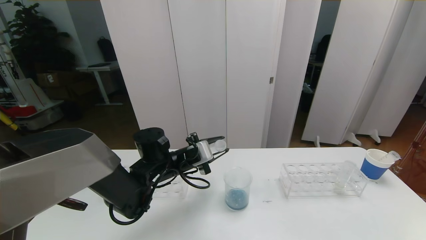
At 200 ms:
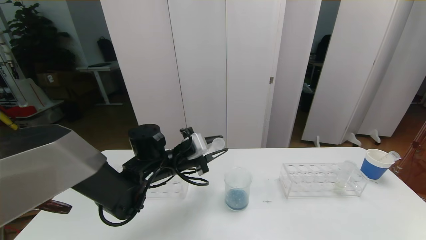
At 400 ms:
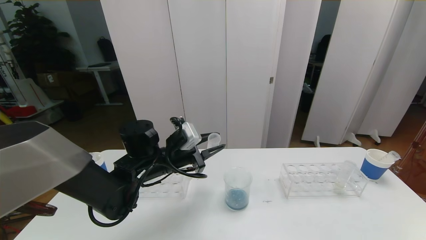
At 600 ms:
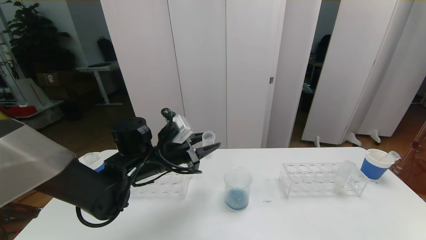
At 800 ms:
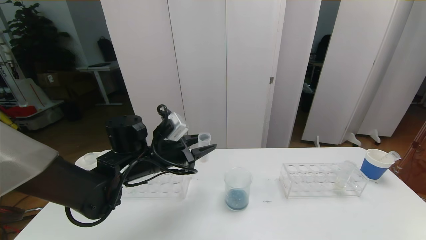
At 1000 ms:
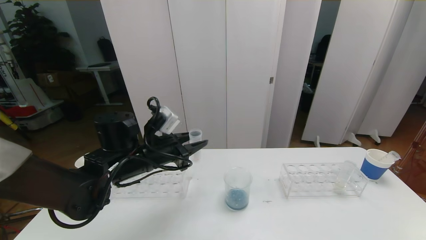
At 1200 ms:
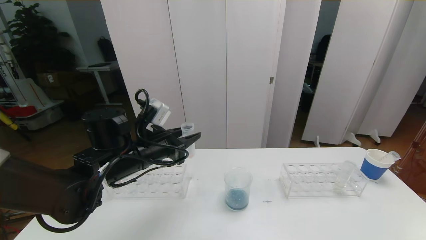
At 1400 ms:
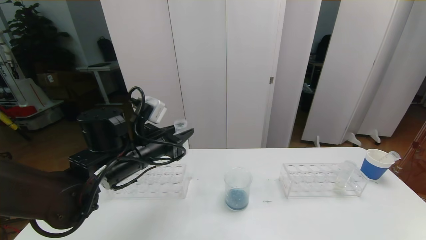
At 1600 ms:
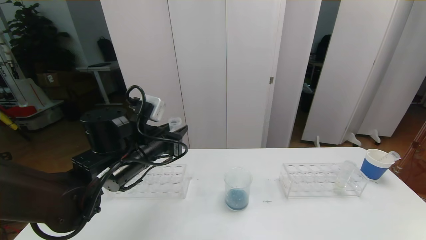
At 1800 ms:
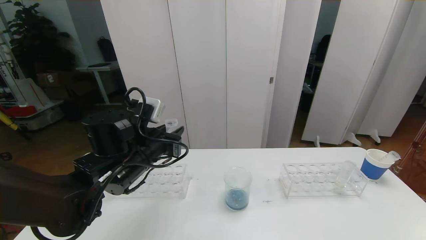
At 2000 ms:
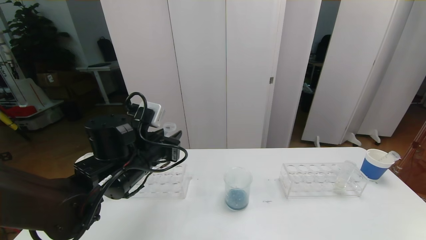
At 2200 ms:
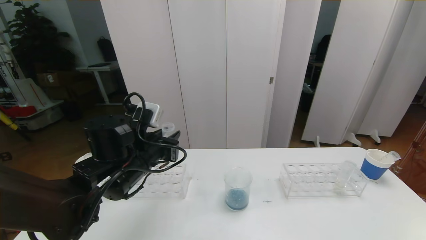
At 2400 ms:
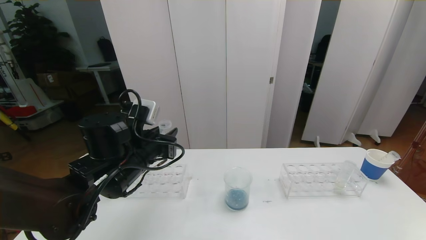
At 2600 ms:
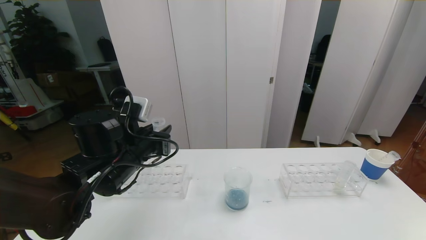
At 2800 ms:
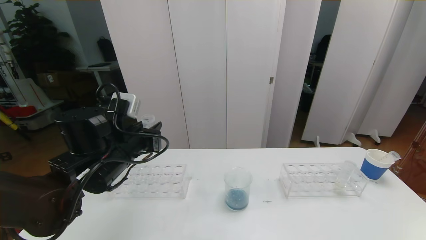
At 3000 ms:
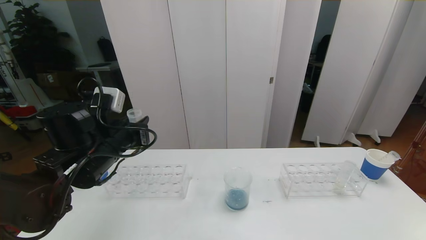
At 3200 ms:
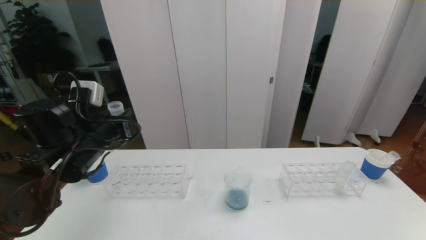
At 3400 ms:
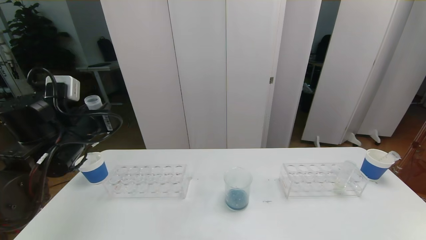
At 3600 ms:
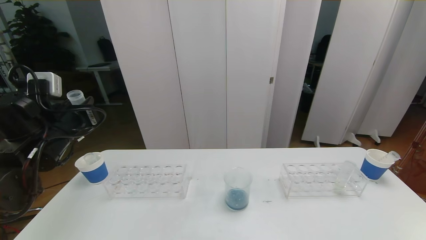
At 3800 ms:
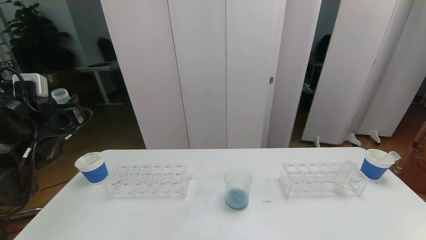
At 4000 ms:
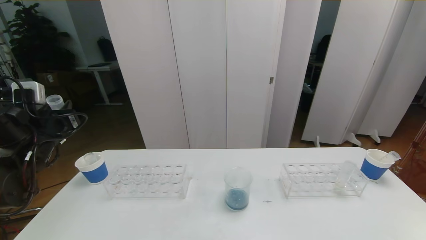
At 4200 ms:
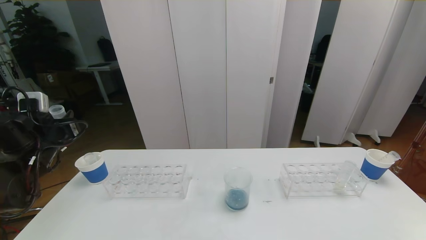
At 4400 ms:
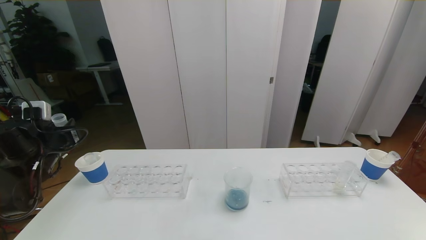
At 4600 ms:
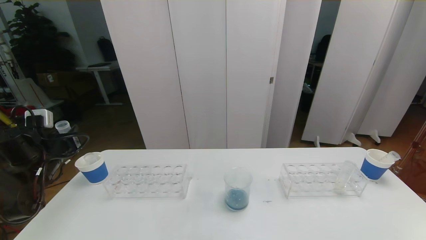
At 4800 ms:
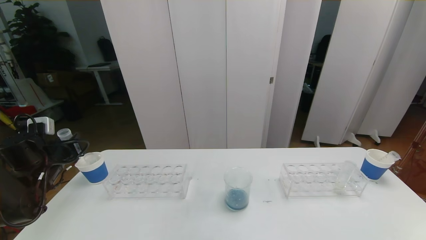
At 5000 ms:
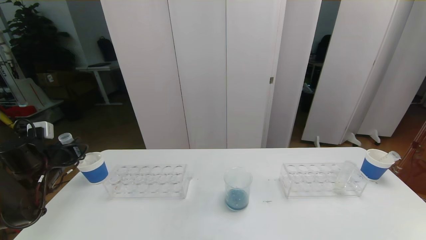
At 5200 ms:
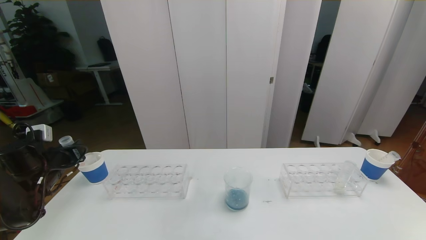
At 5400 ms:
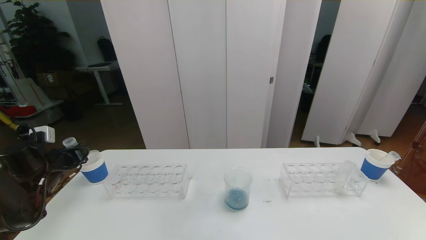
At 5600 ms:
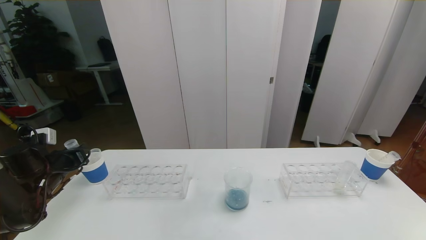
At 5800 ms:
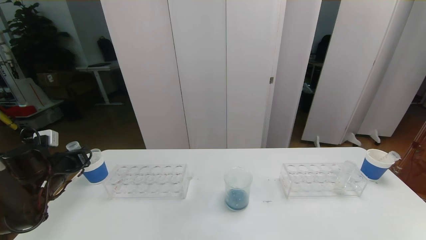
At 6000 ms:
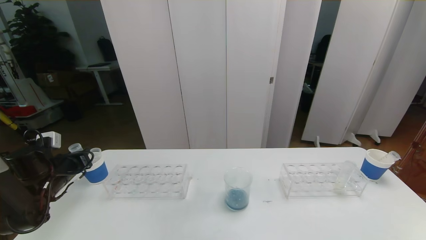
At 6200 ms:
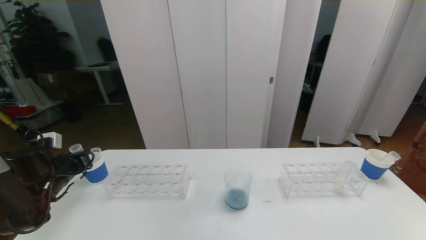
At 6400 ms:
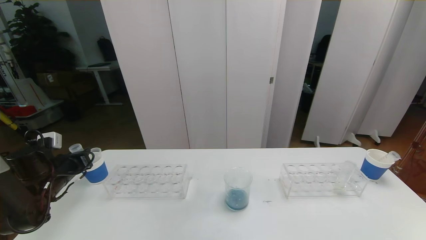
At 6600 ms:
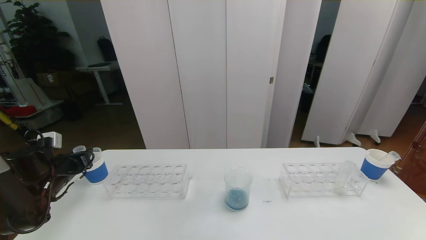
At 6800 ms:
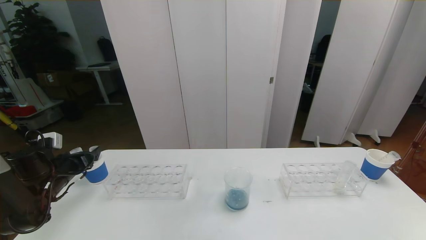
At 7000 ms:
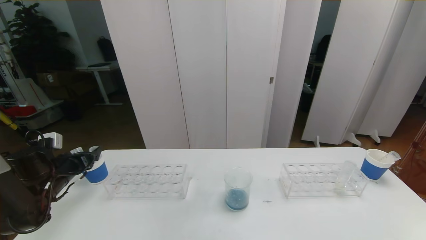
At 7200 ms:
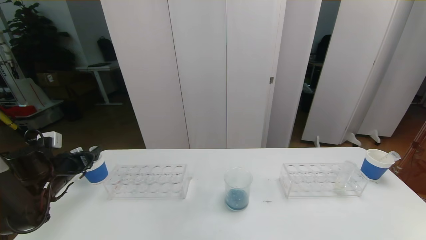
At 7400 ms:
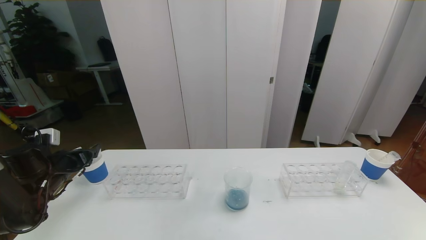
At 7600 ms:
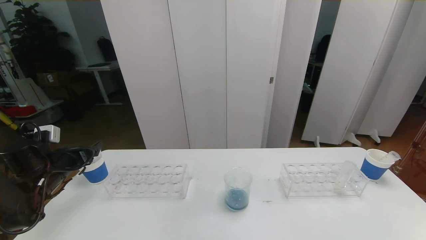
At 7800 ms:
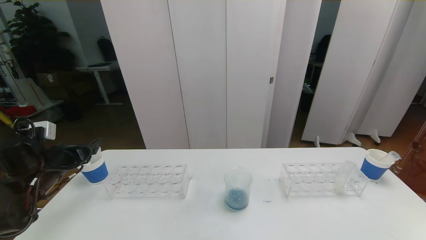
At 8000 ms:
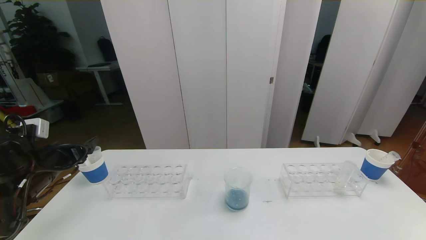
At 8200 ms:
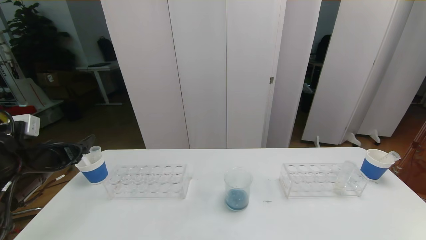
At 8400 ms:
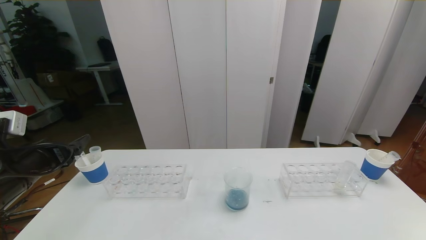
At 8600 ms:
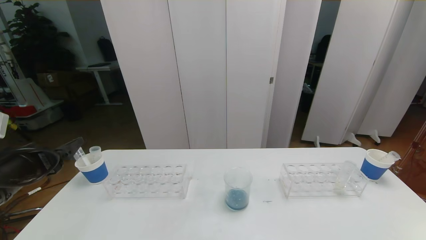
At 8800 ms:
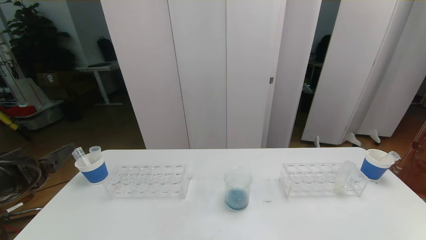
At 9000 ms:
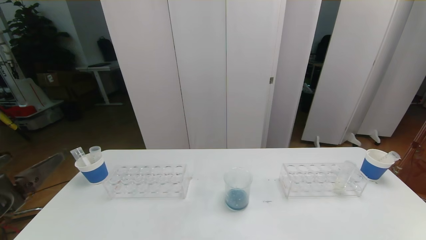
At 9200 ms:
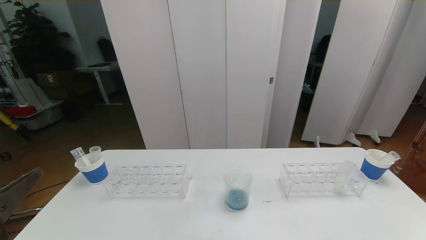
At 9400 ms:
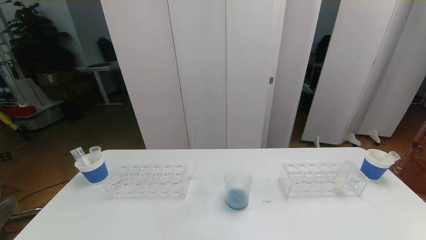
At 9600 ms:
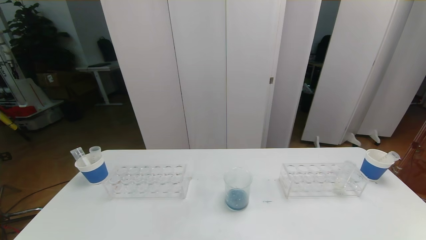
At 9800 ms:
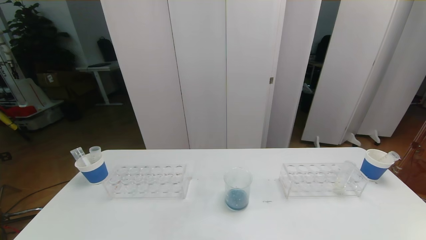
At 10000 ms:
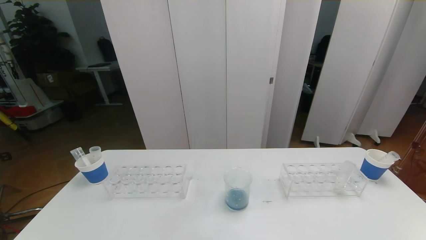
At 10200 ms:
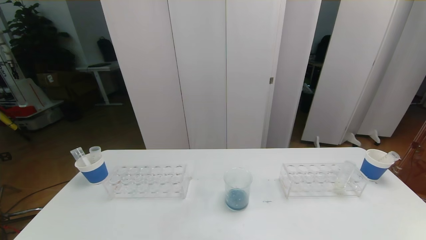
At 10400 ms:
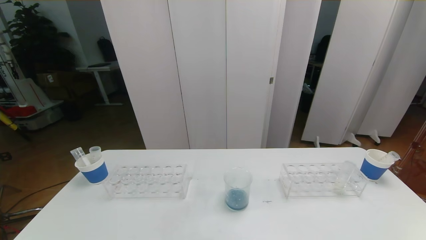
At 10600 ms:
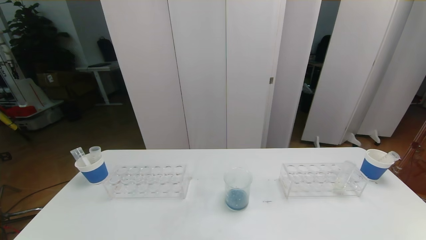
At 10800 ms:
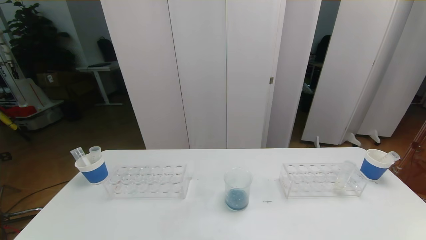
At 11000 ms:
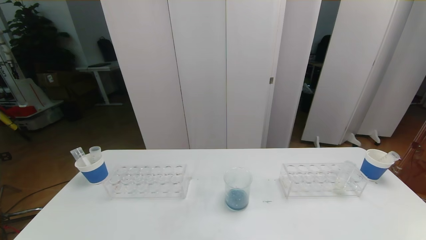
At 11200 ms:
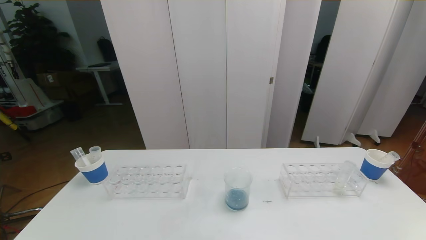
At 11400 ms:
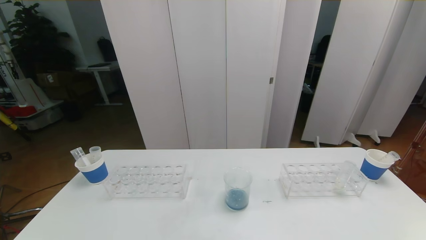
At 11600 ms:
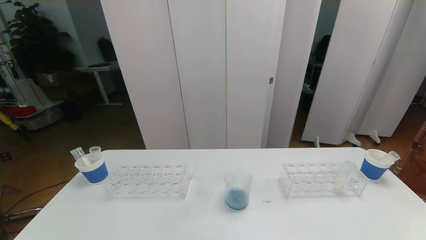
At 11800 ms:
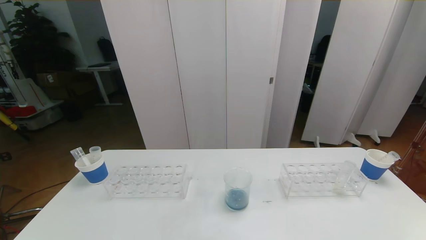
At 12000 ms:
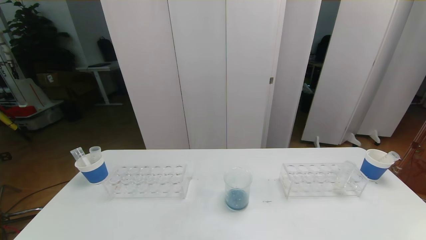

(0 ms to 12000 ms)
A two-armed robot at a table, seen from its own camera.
Task of the whole recording: pick up the test tube with red pigment the test tube with blue pigment and the test tube with white pigment by grippers and pour them into the beaker.
Step, 0 ms - 7800 ms: Place the test tube into the paper cup with the left gripper.
0 ms - 1600 ms: The left gripper goes about 10 cm upward and backward.
1600 ms - 3000 ms: The left gripper moves to the left, approximately 5 cm.
3000 ms - 4400 ms: The left gripper heads to the left, covering some 15 cm.
4400 ms - 6000 ms: The left gripper heads downward, covering some 5 cm.
6000 ms - 7600 ms: The left gripper opens up.
7600 ms - 9000 ms: The left gripper shifts roughly 25 cm backward, upward and to the right.

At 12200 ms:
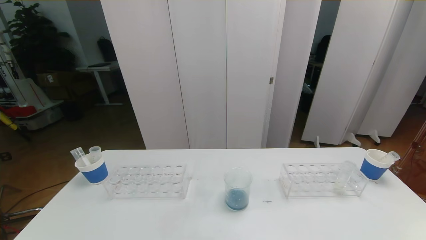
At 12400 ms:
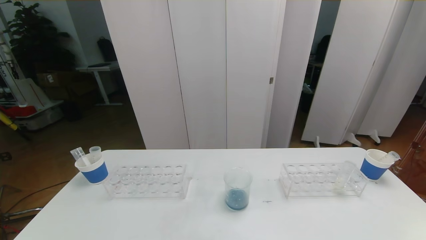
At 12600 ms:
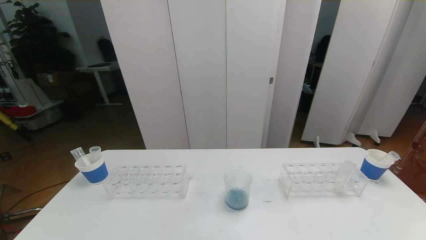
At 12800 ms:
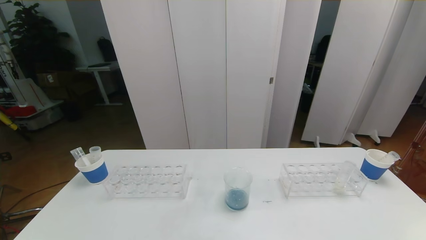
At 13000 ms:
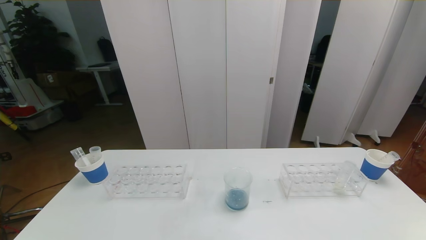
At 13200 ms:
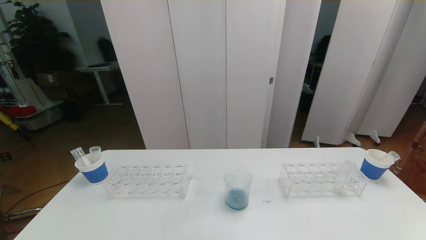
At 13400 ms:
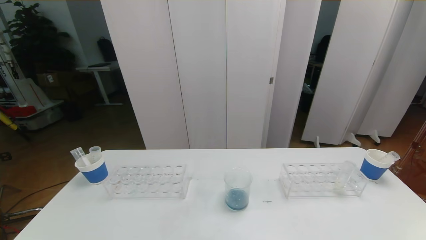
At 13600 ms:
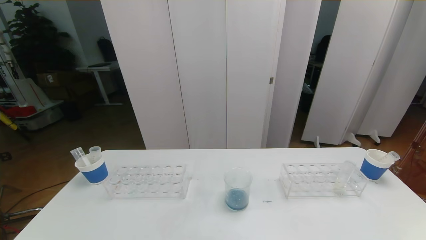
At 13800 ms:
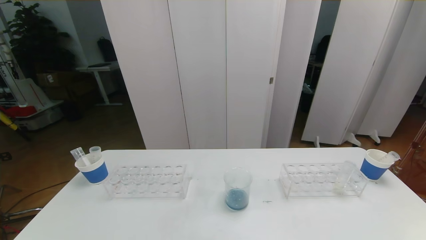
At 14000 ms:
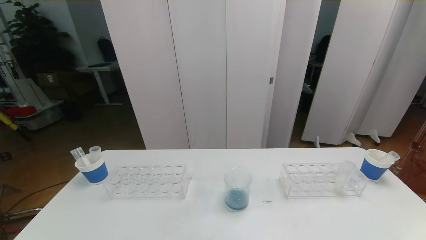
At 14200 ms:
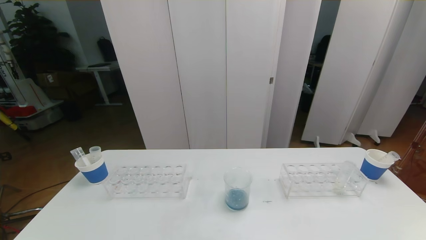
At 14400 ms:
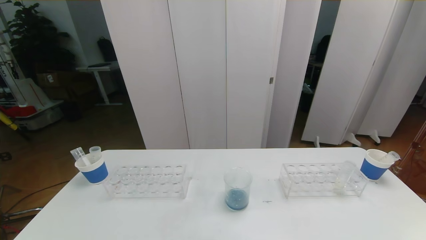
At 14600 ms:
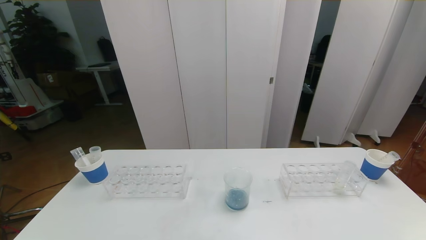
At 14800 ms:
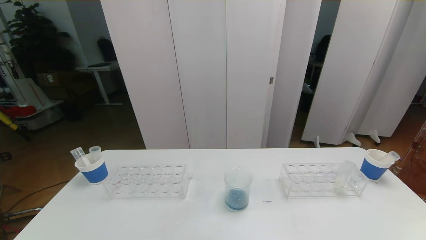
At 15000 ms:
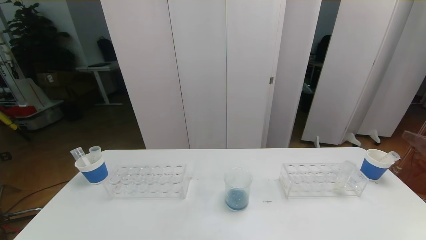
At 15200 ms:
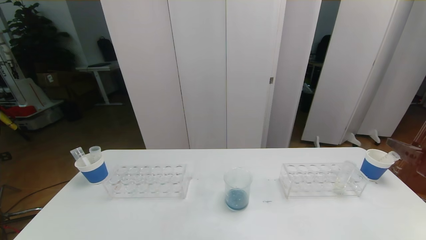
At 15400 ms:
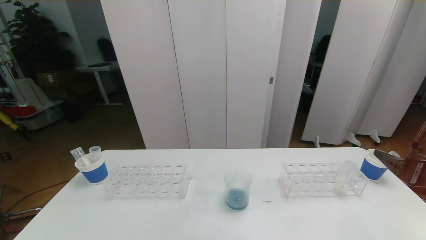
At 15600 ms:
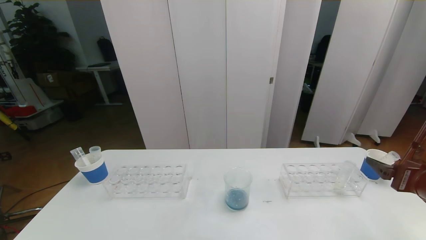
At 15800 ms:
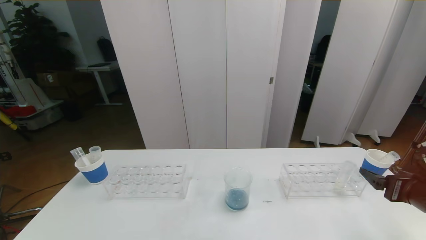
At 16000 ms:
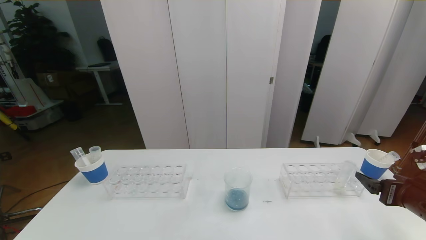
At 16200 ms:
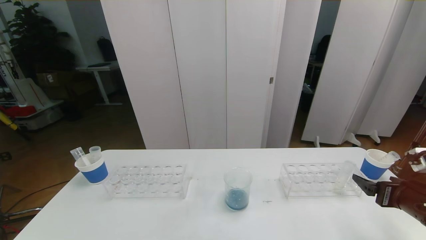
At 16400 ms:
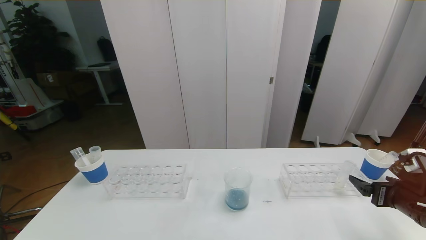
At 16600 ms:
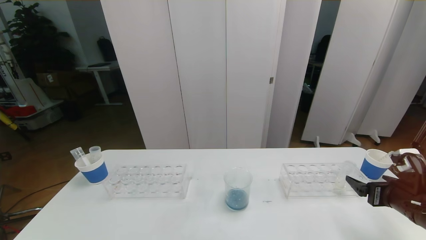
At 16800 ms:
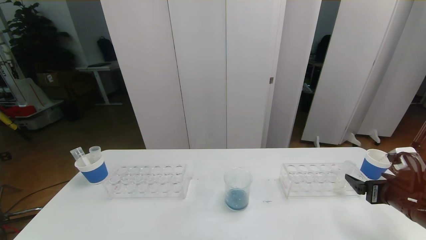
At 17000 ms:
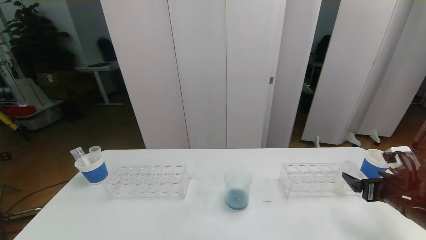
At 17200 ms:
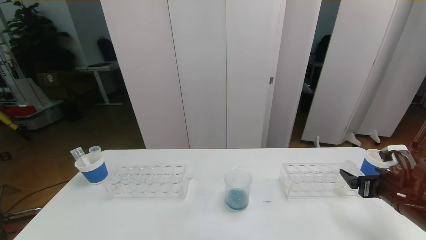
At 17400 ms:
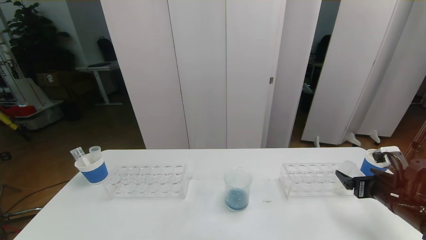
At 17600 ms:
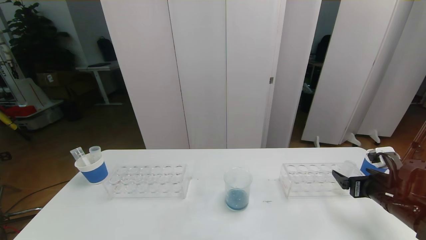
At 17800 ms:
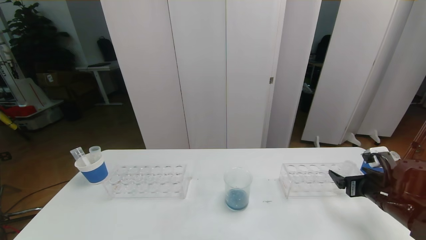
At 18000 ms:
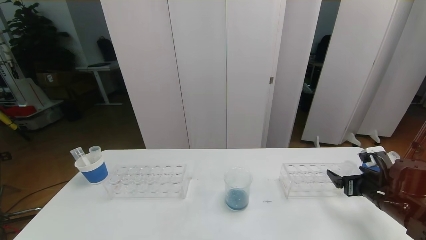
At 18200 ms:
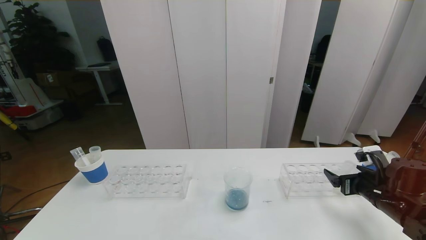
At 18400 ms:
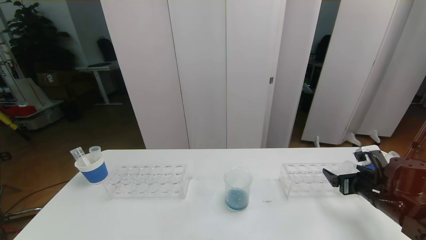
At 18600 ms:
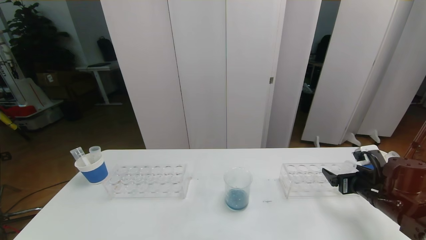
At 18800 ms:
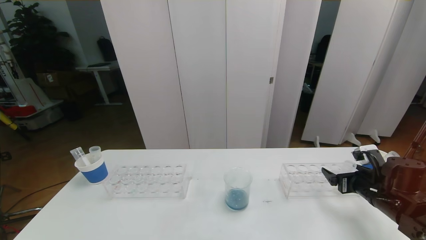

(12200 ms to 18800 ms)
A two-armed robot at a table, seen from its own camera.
Task of the whole recording: pick up the test tube with red pigment the test tube with blue pigment and the test tube with white pigment by grippers and pour them into the beaker.
15400 ms - 17200 ms: The right gripper is displaced downward and forward by roughly 10 cm.
17200 ms - 18800 ms: The grippers stay close to where they were, moving slightly.
